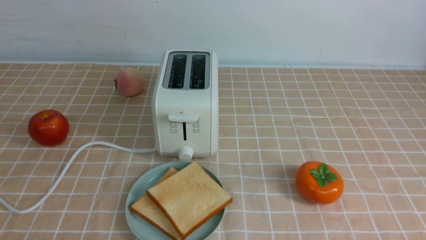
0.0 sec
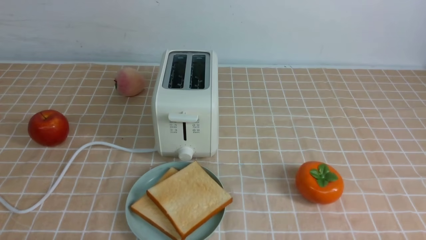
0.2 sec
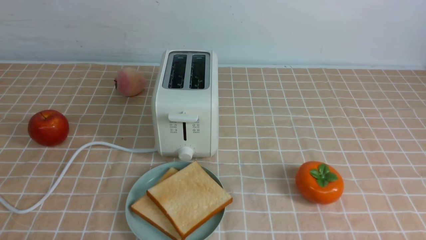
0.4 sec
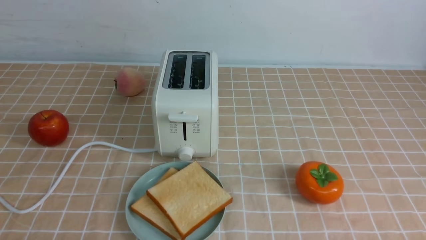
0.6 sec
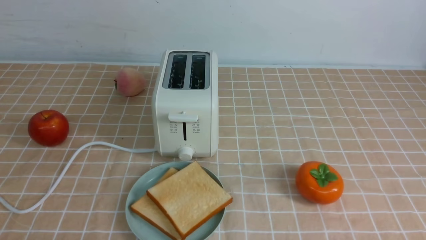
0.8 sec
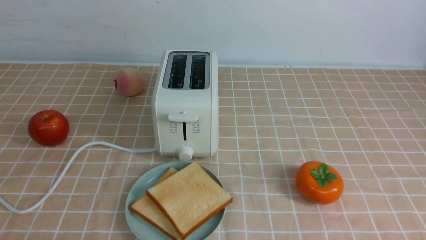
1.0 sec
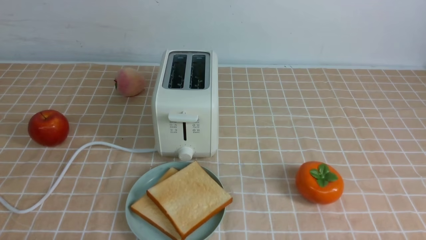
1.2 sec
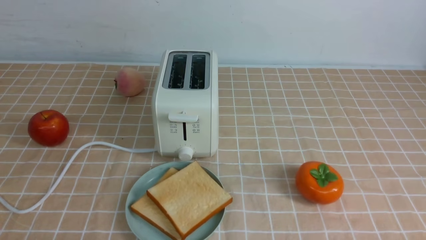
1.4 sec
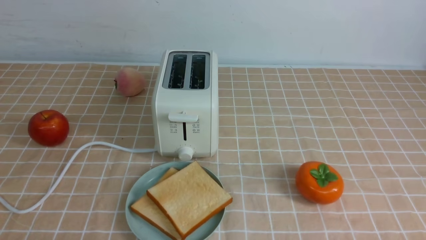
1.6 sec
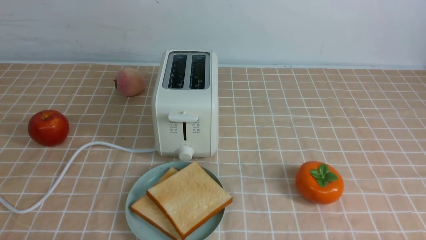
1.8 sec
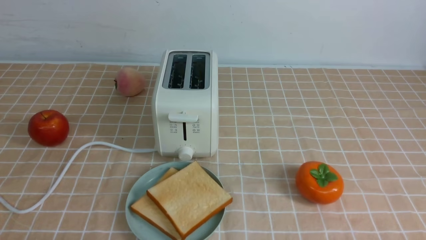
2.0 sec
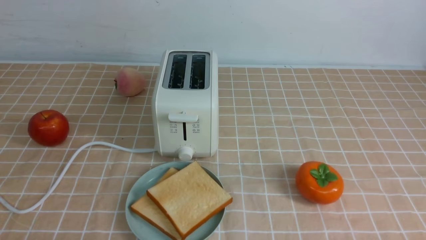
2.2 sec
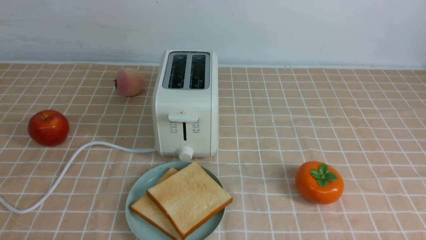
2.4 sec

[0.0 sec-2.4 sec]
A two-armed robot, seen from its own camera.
Task of the whole recording: take toasted bread from bread machine on light coffee tablecloth place on plate.
0.0 sec to 2.4 sec: Both grippers stay about where they are.

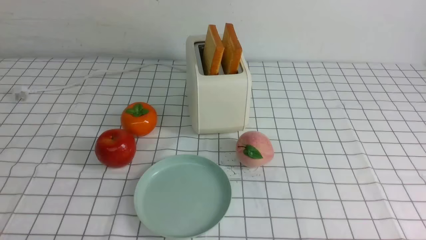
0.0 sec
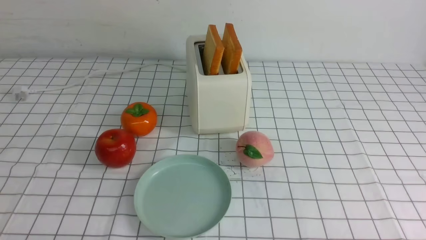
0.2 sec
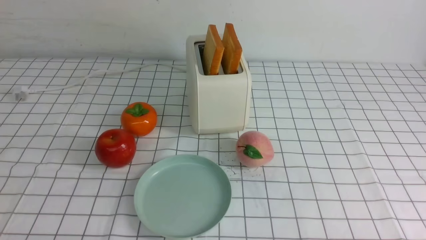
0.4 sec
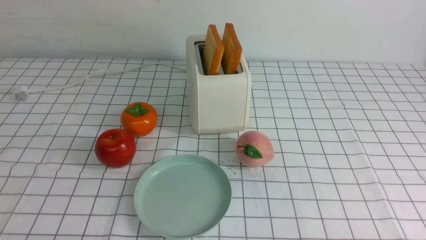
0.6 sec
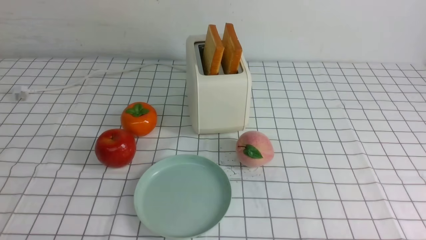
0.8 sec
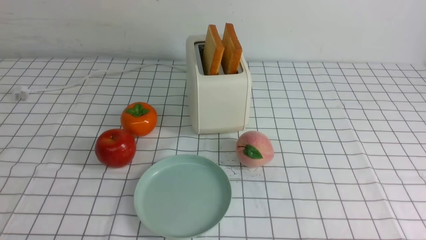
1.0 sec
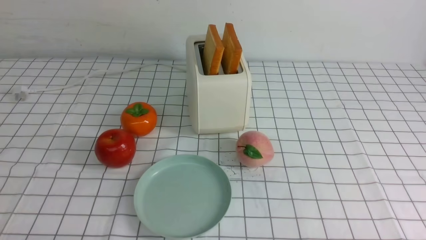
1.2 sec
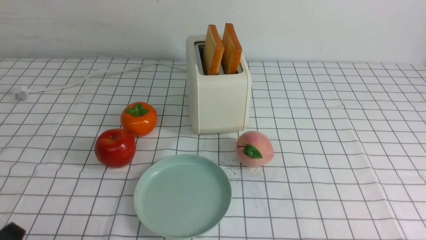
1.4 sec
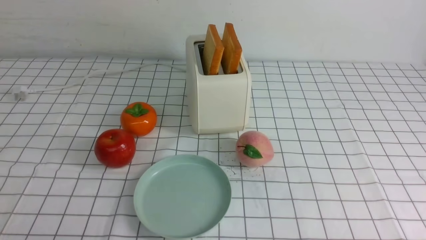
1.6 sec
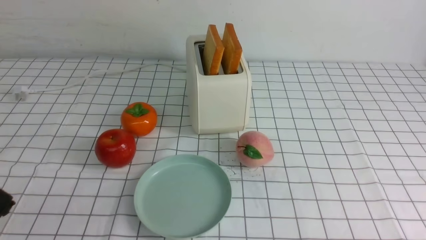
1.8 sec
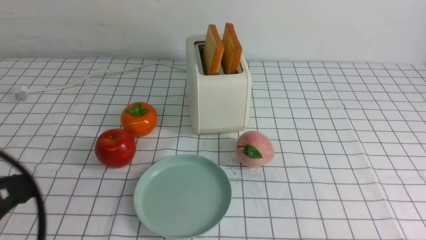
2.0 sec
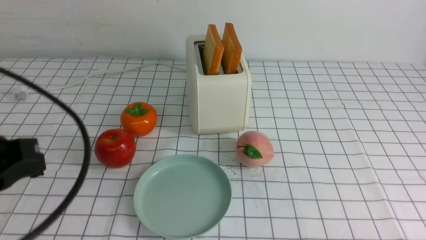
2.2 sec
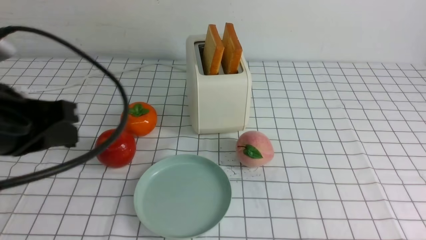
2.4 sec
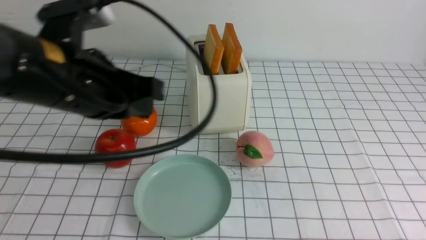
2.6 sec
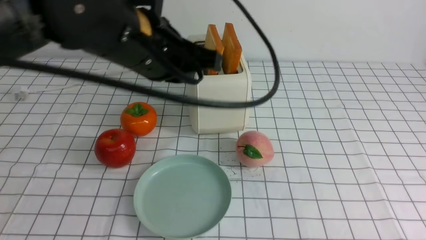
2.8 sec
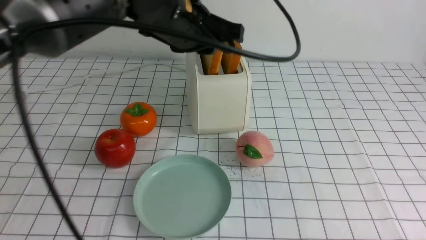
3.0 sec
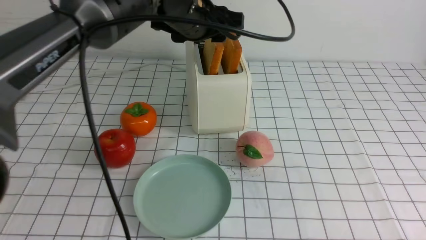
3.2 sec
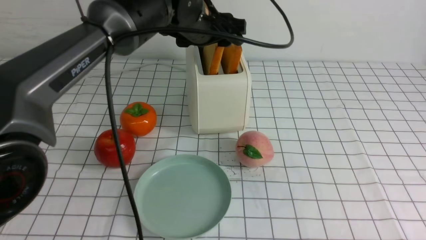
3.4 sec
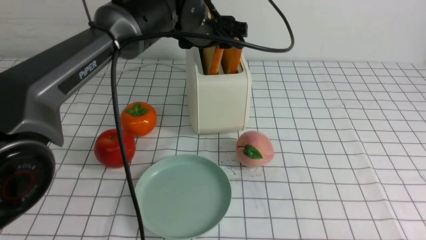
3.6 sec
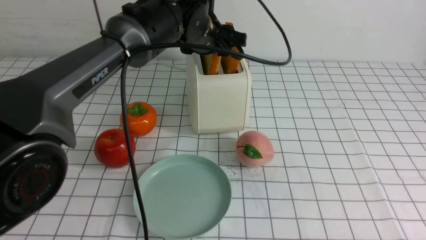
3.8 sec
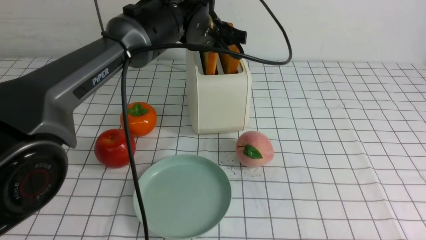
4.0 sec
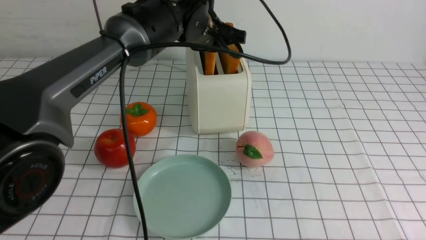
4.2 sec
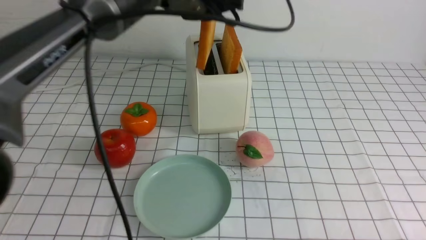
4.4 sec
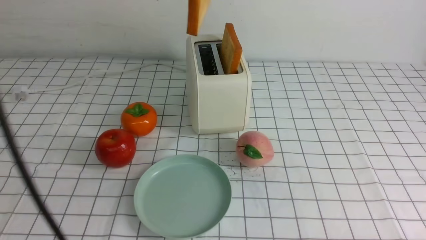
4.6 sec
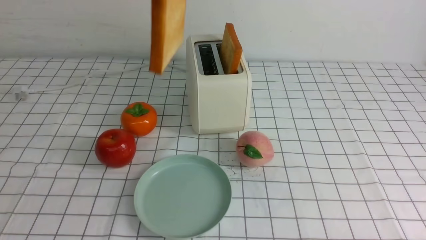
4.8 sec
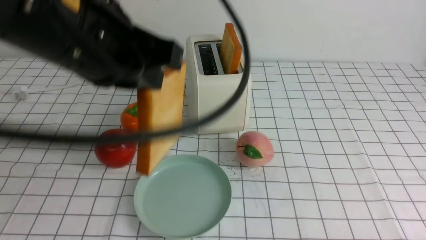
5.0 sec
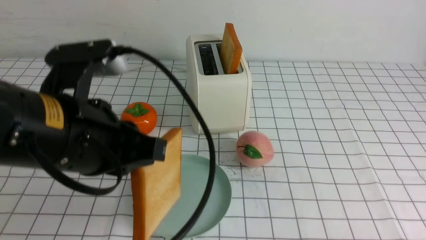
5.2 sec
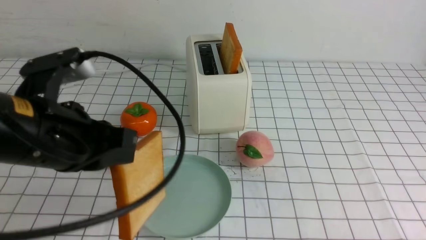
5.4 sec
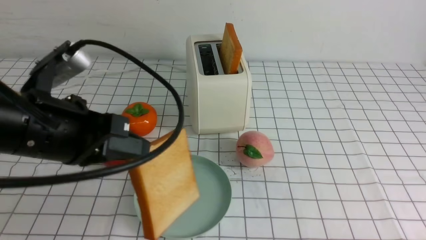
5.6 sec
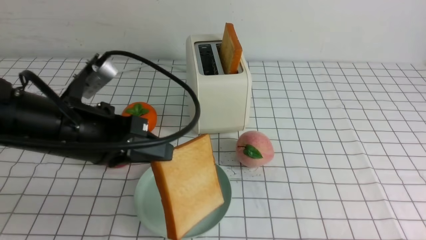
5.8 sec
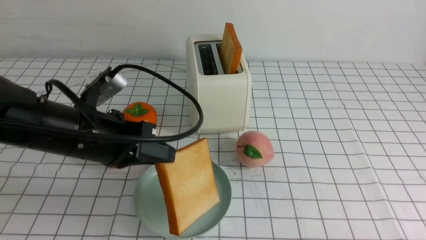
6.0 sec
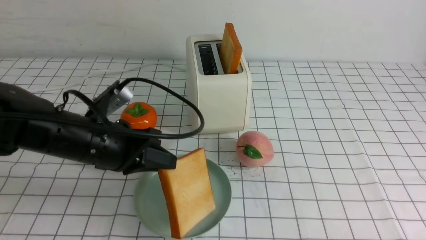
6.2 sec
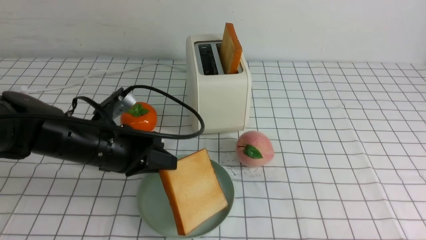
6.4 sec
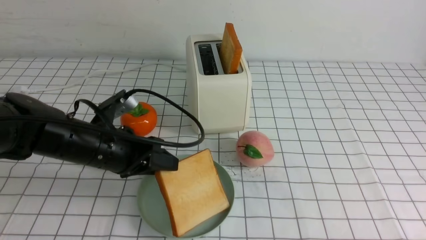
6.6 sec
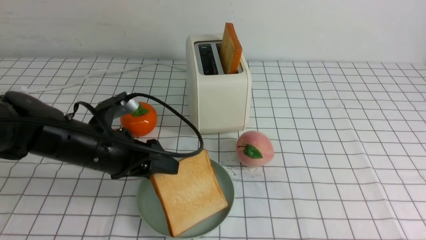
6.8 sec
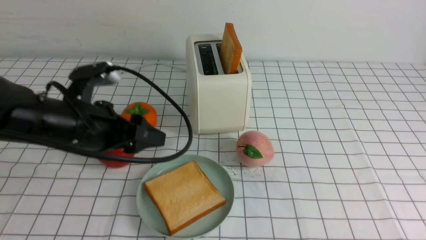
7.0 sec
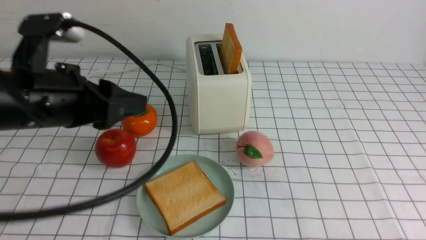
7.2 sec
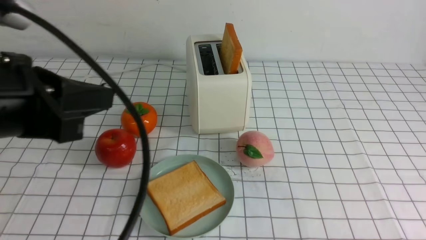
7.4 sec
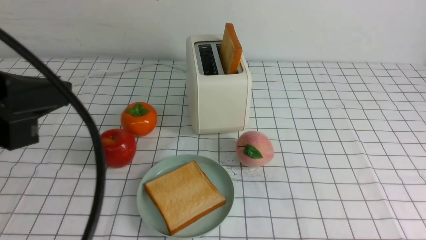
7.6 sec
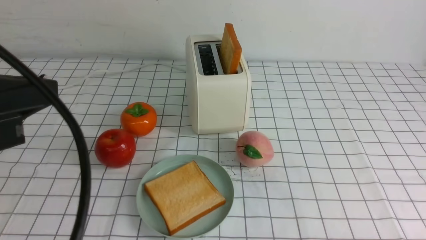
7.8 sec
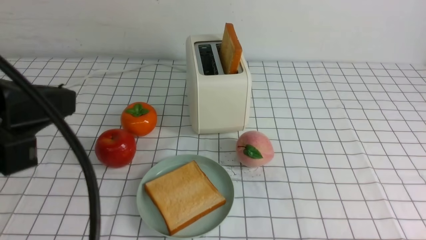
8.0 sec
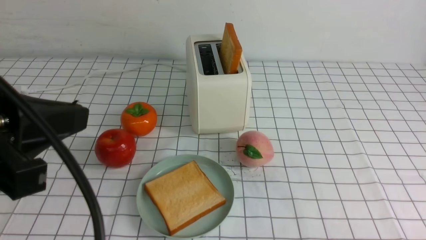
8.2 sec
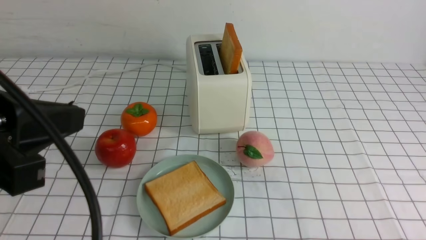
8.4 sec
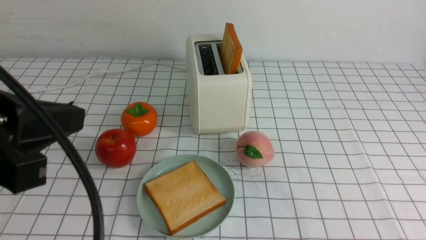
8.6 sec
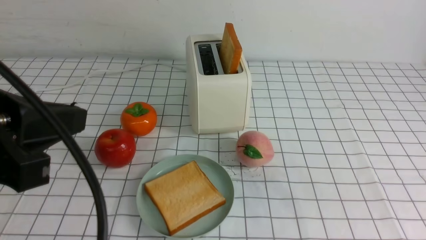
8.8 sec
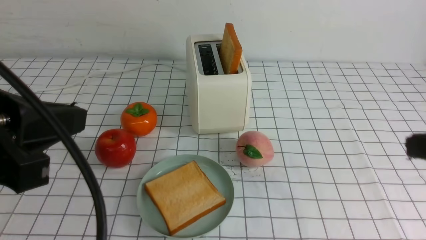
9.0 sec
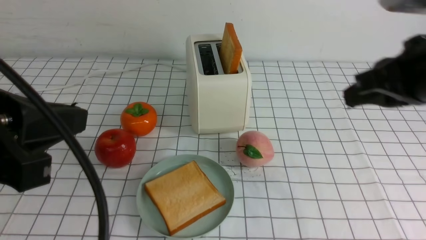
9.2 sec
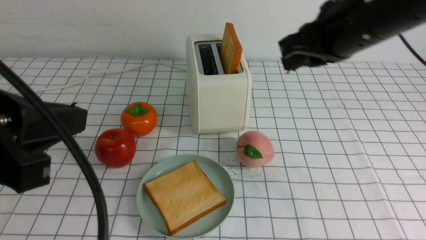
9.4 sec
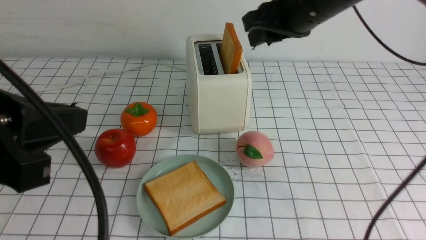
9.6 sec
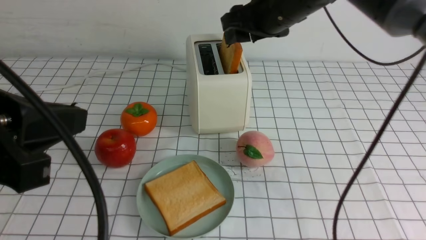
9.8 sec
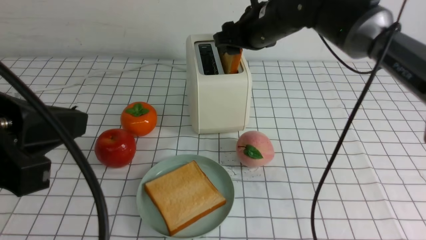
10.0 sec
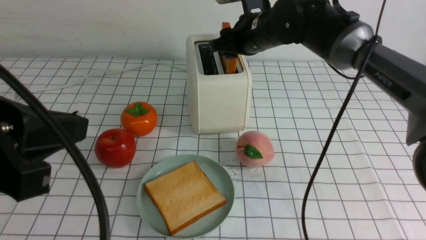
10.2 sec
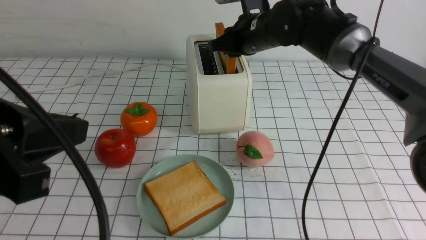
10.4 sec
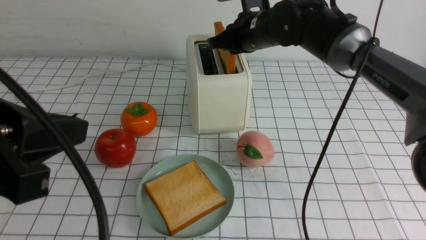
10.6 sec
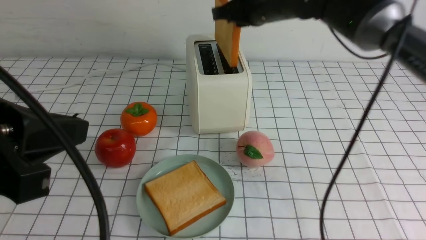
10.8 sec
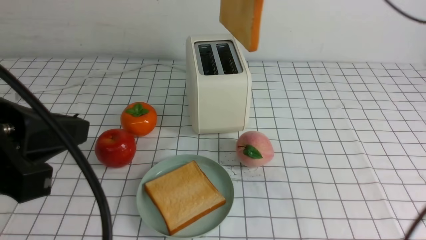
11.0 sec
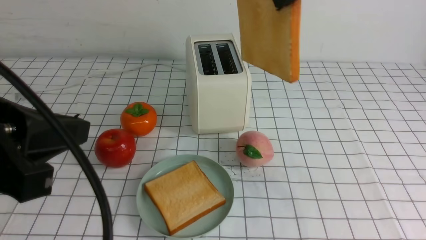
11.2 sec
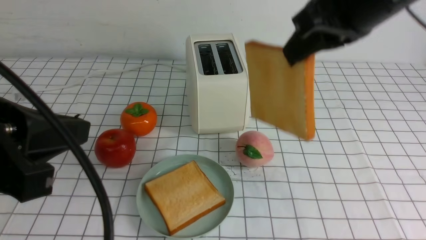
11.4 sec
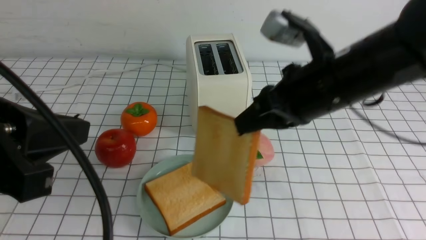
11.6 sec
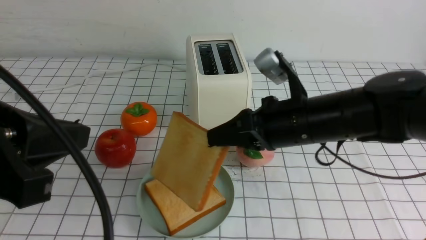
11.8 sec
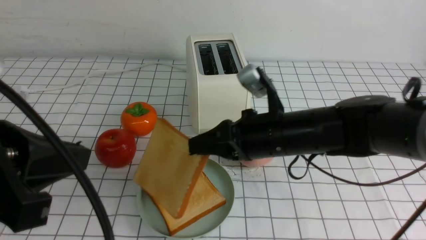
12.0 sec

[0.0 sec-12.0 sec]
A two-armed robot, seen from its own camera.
Task of the whole recording: take toasted bread from bread machine on white checkered table place on plate.
Step, 0.0 sec to 4.2 sec: use the left arm to take out a slice of bread.
Step, 4.4 sec to 7.0 sec: use the left arm to put a slice of bread into the empty plate.
Step, 7.2 sec to 11.0 sec: use the right arm to take out a slice of bread.
1.6 sec to 3.0 sec: The left gripper goes approximately 40 cm forward, to the right and upward, and closes, then opens again.
3.0 sec to 4.4 sec: The left gripper closes up.
4.4 sec to 6.0 sec: The left gripper shifts approximately 25 cm downward, backward and to the left.
6.0 sec to 7.6 sec: The left gripper travels upward and backward by approximately 20 cm, and opens and closes again.
9.0 sec to 10.4 sec: The right gripper heads forward and to the left, covering about 35 cm, and opens up.
10.4 sec to 12.0 sec: The right gripper travels backward by some 15 cm, and goes upward and returns, roughly 15 cm each way.

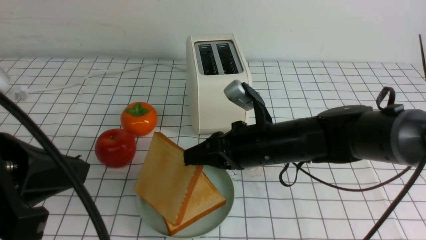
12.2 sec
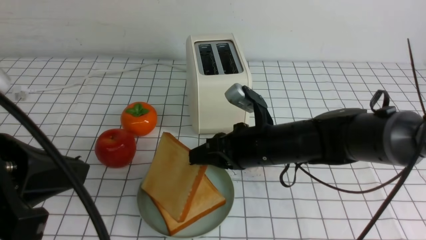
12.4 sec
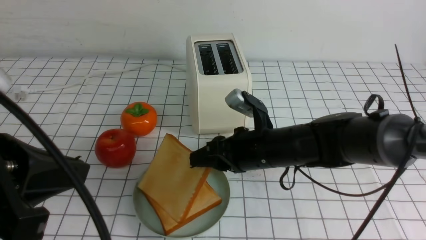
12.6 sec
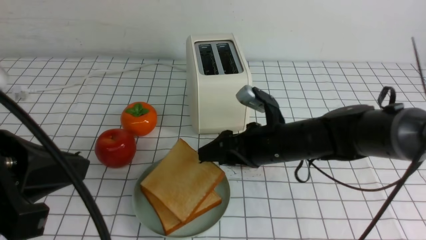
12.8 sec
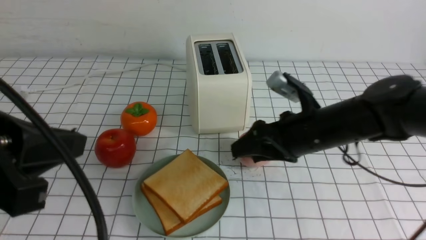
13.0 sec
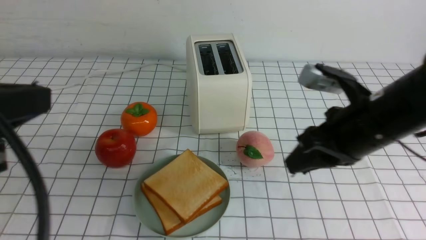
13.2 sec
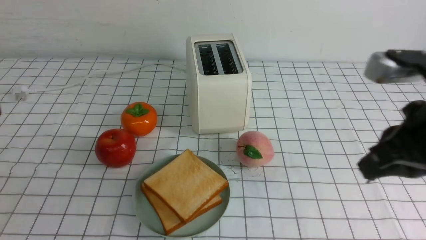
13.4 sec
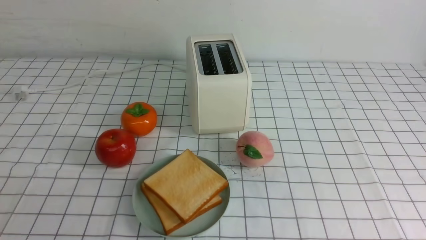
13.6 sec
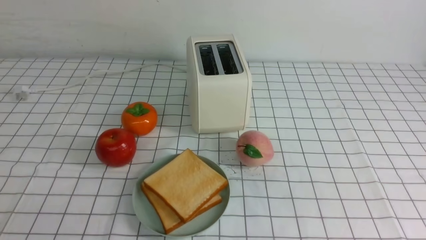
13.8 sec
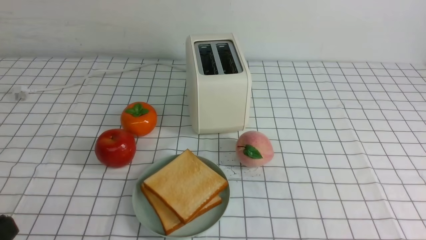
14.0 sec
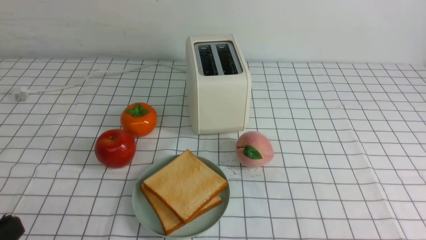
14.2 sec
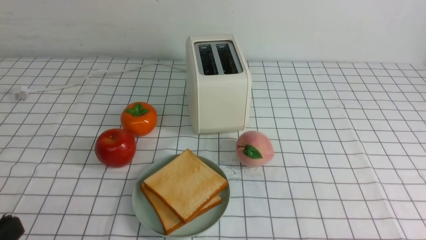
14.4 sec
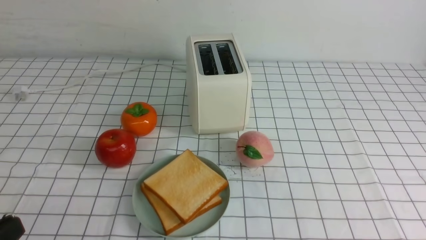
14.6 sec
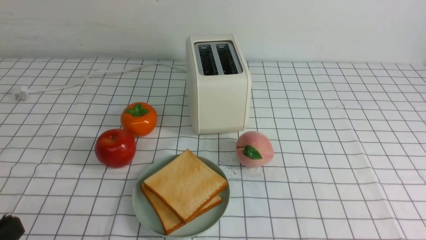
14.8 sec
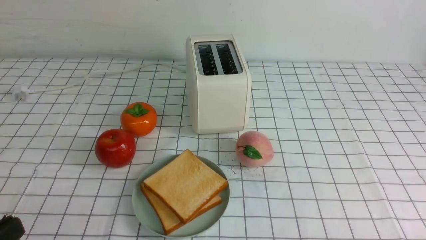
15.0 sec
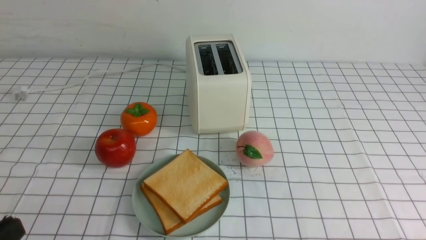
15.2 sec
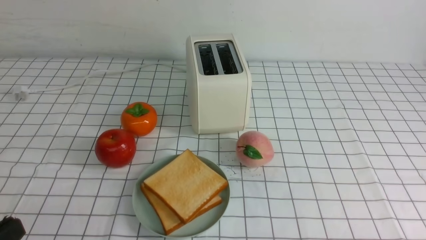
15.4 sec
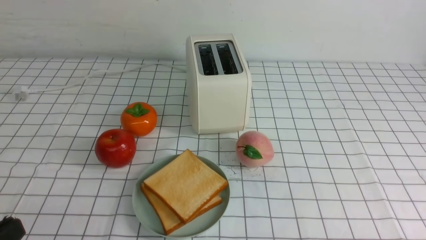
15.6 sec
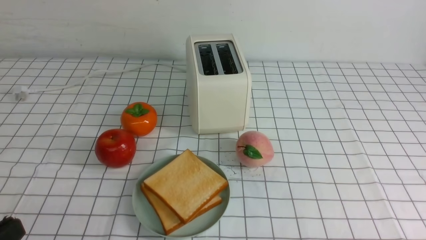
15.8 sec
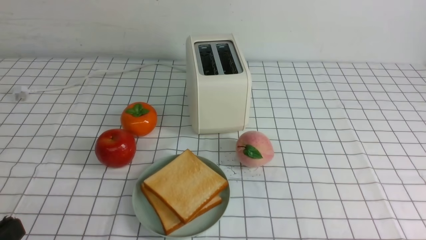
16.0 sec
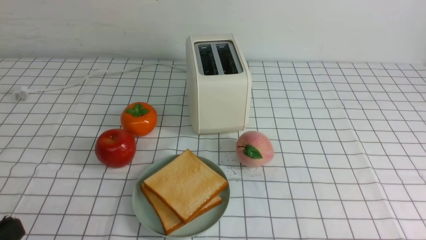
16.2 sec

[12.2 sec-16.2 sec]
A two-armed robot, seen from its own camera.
Task of the whole recording: take toasted bread from bread machine on white checkered table place on plate.
12.2 sec to 13.6 sec: The left gripper moves backward and to the left, approximately 10 cm, while the right gripper moves backward, to the right and upward, about 30 cm, and opens, then closes again.
